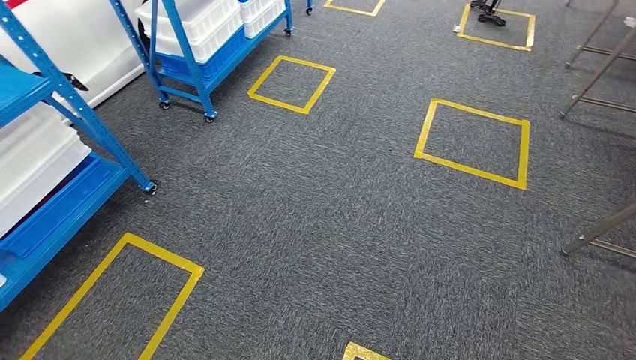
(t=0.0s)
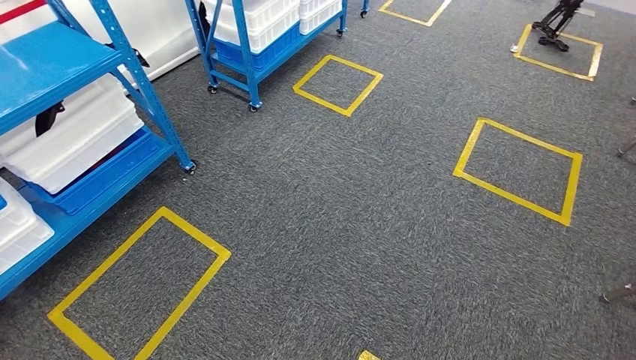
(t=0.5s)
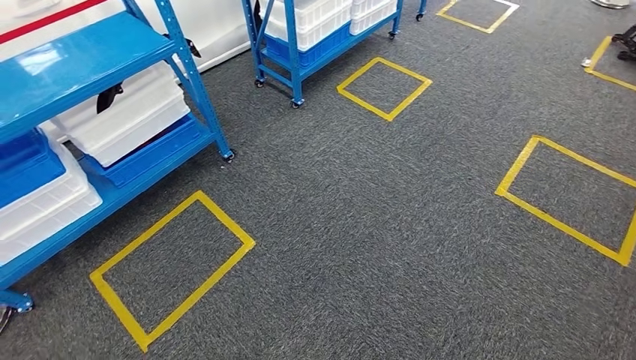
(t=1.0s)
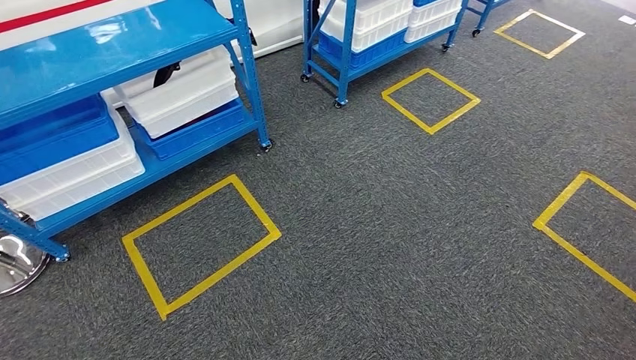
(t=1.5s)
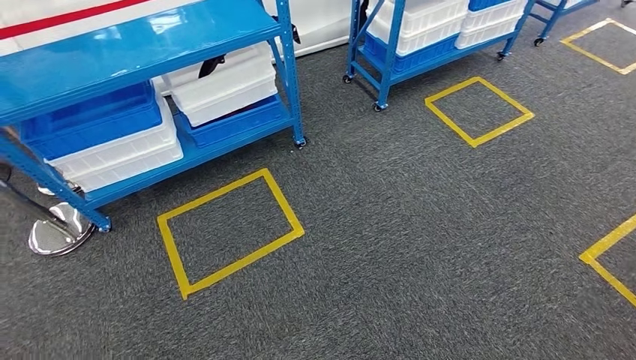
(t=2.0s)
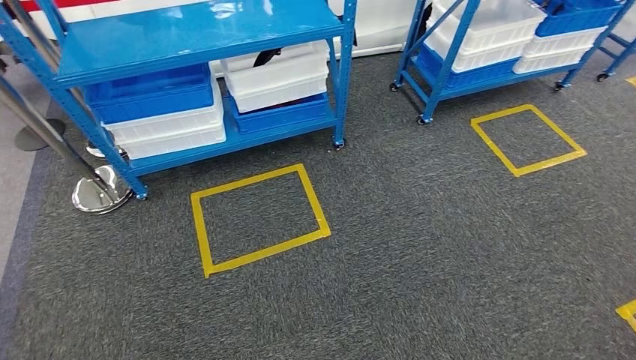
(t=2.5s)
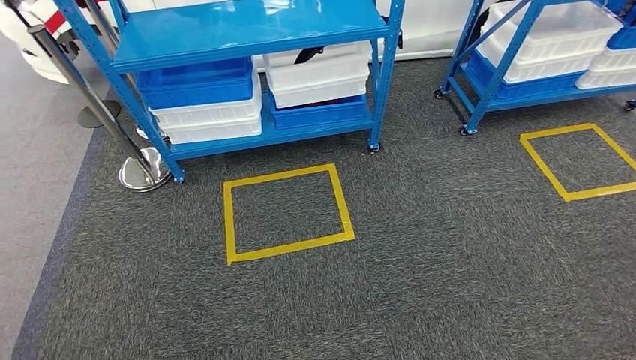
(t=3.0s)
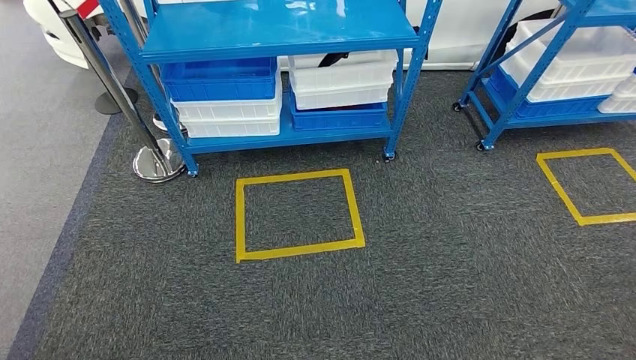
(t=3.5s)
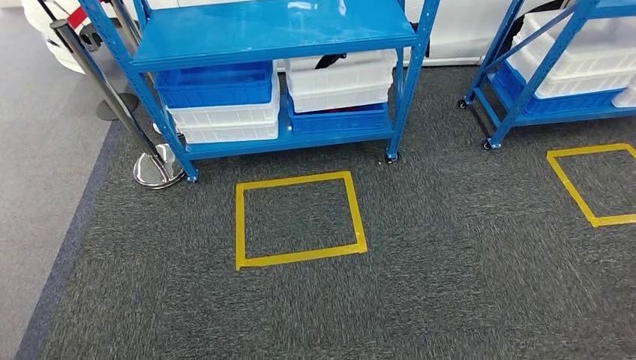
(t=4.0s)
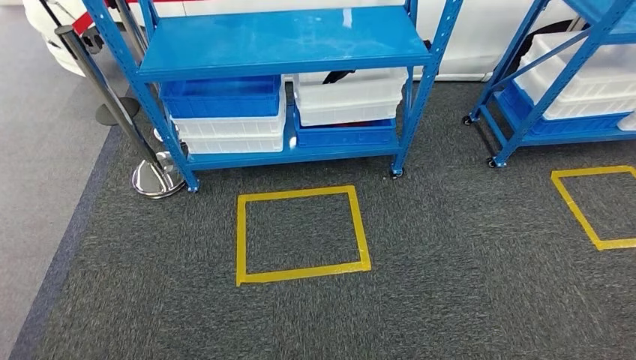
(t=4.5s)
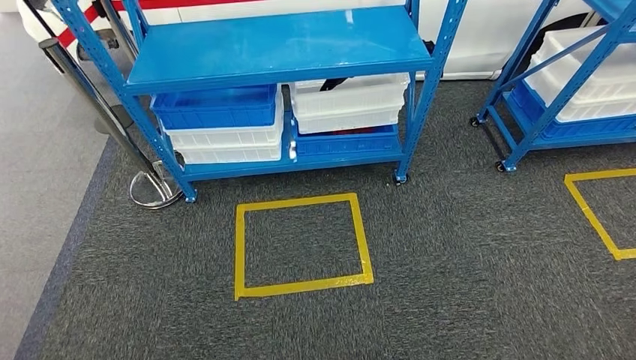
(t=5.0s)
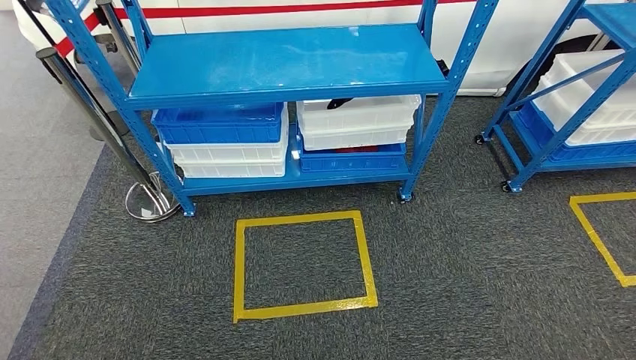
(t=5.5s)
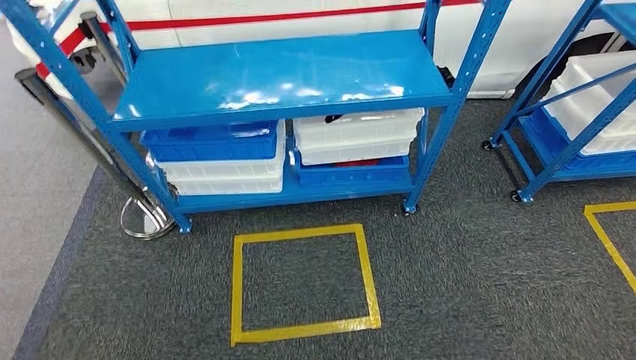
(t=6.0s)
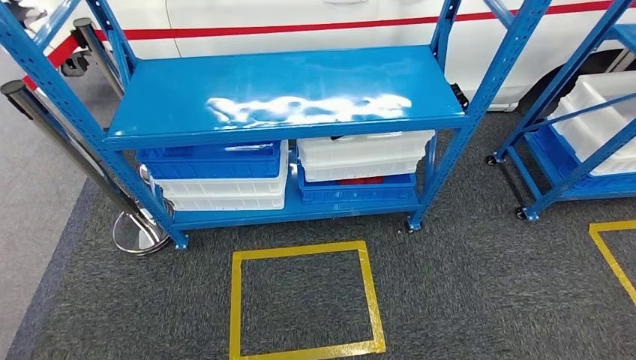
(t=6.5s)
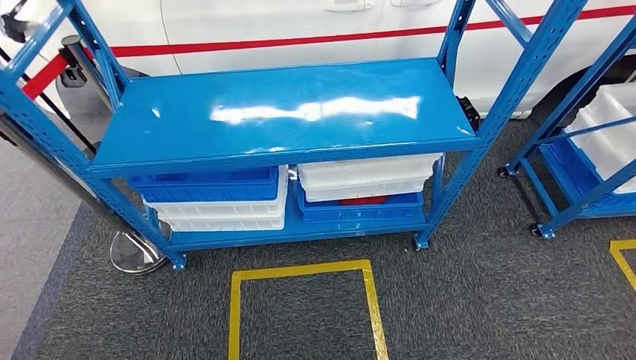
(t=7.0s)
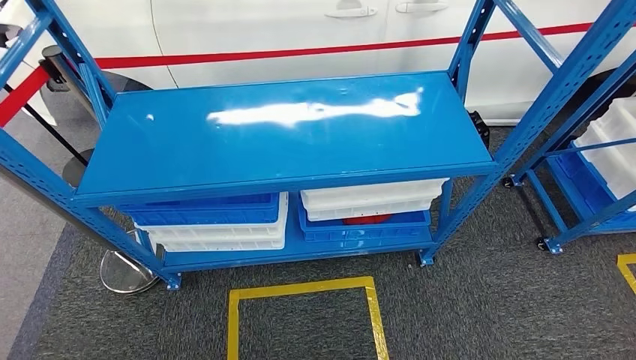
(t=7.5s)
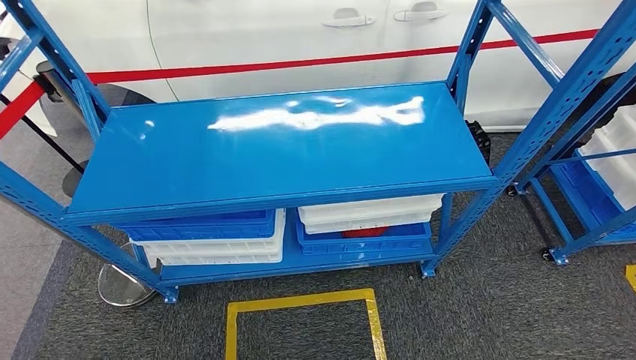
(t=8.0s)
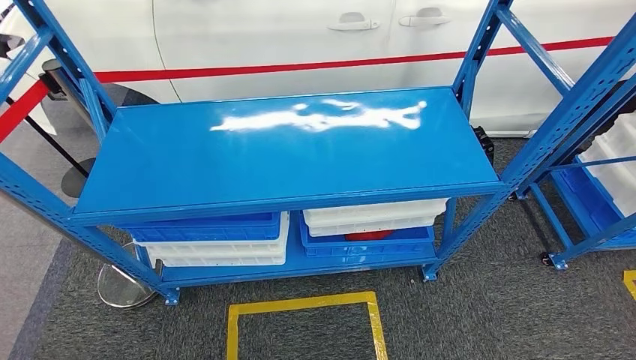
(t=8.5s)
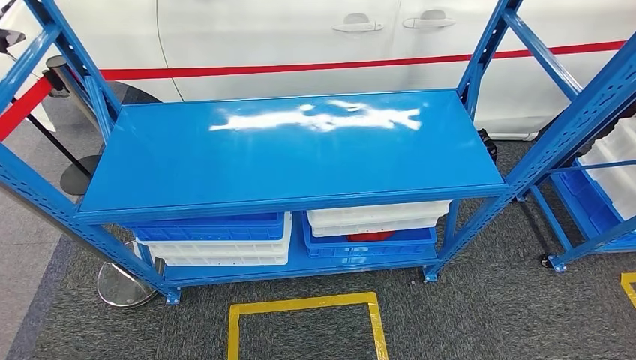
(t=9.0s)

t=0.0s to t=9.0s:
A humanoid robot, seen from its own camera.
Step, t=0.0s to t=9.0s: Return to the initial position at the shelf.
